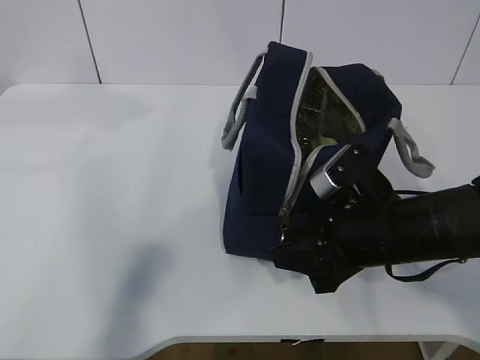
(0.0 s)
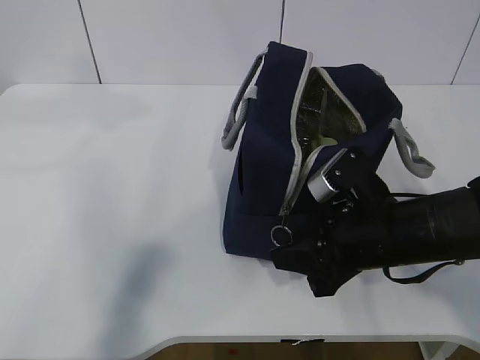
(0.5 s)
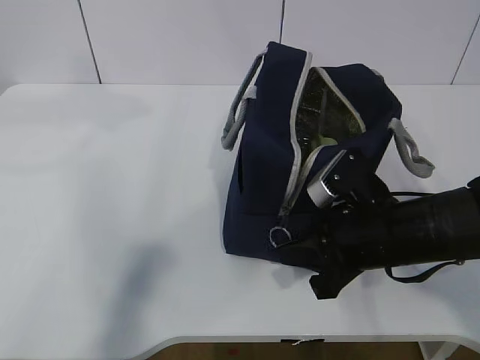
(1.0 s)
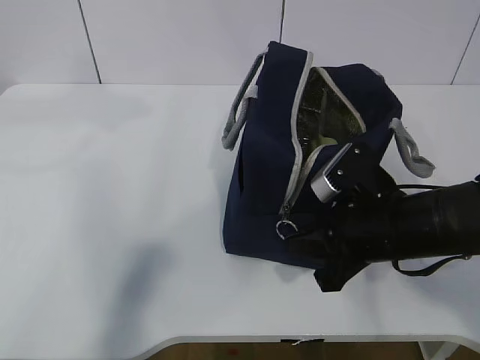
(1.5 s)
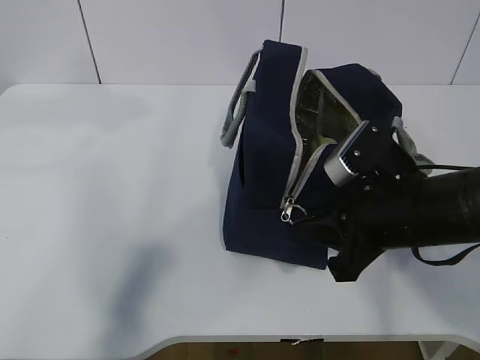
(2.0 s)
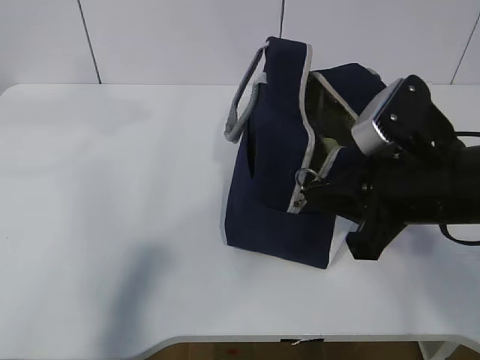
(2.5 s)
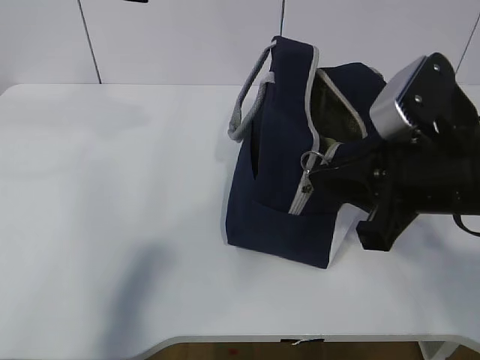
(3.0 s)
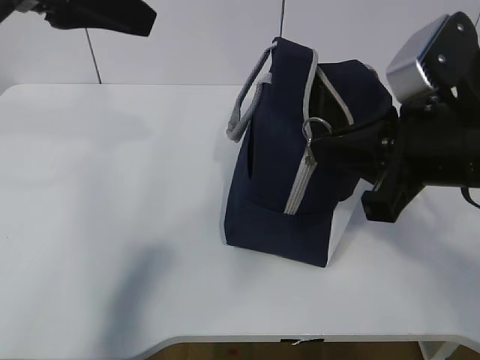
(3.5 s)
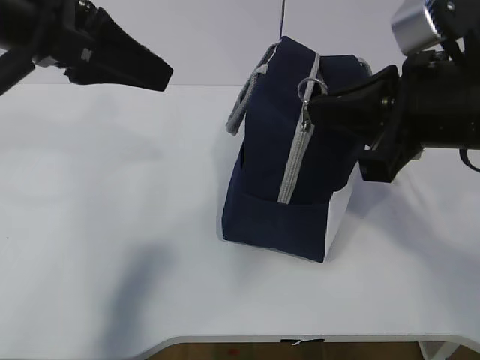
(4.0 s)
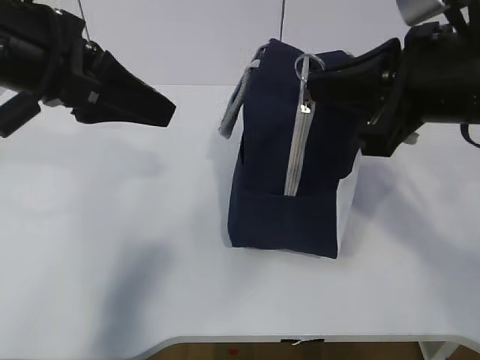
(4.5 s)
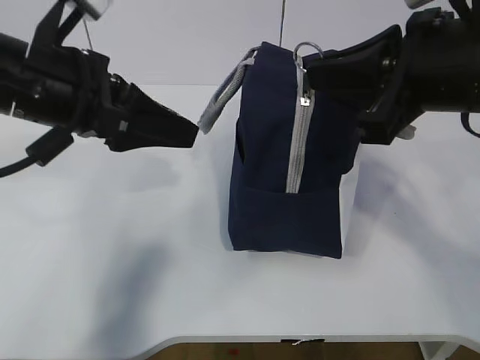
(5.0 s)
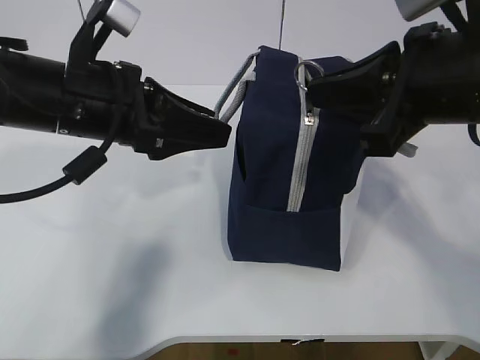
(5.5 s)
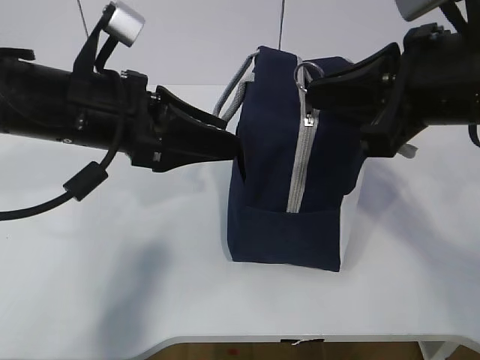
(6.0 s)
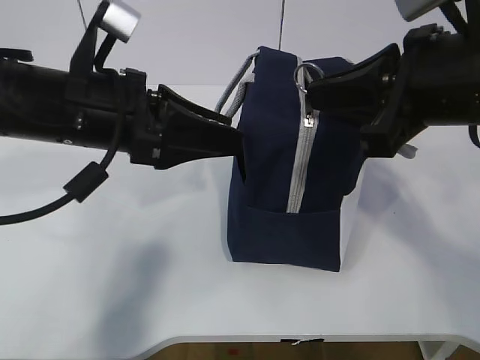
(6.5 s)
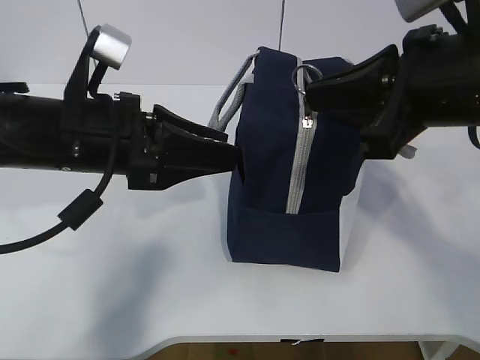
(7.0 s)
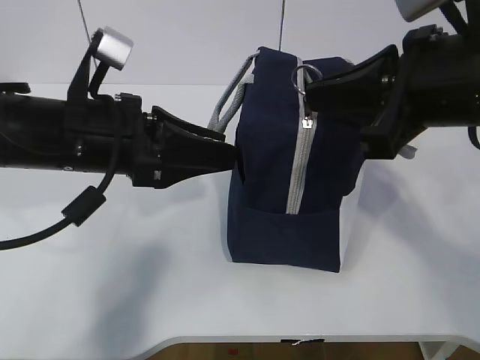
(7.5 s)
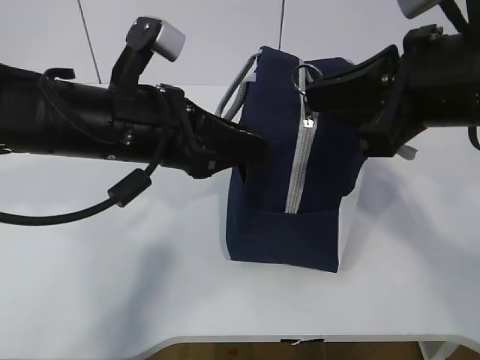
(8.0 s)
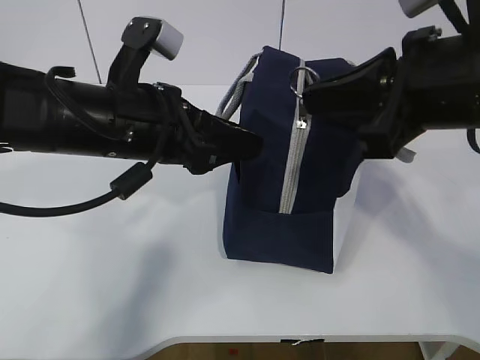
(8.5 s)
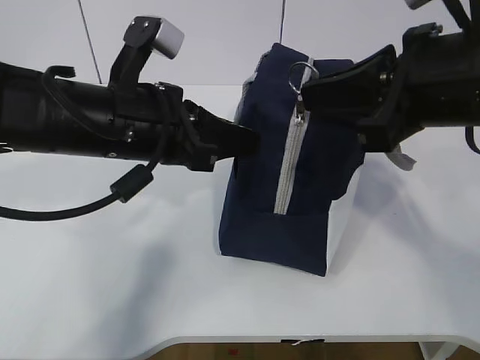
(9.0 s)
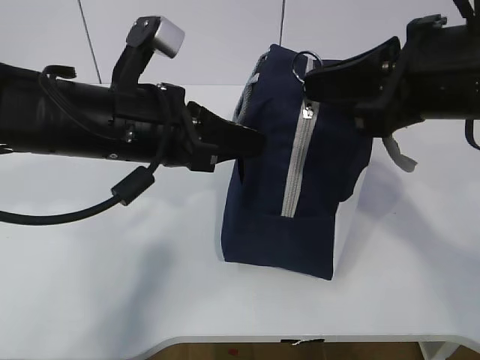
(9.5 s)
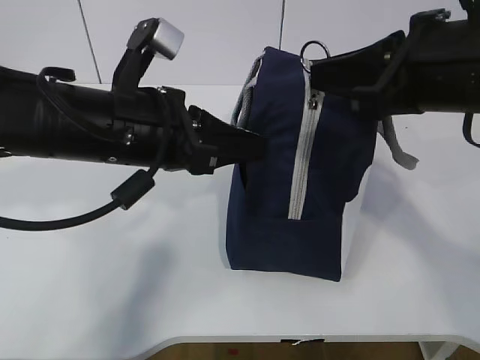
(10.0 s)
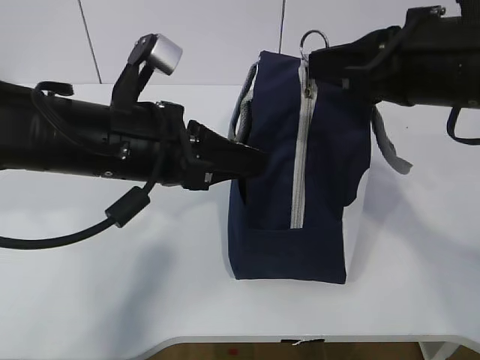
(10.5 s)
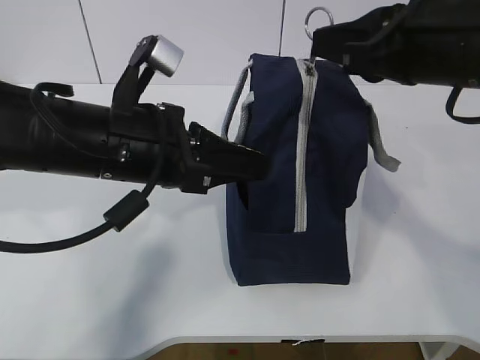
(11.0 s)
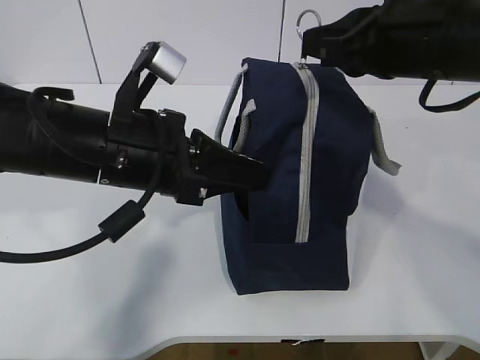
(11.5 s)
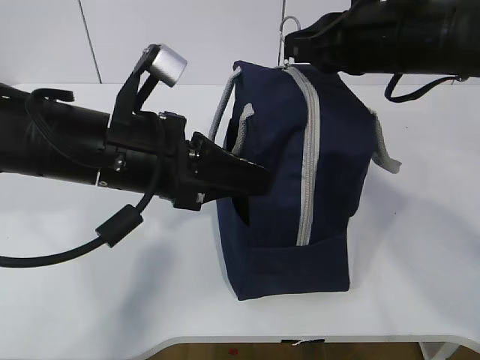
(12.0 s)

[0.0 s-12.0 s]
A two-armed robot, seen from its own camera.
Step, 3.0 to 8.5 s: Pull the zipper with your right hand.
0.0 to 2.0 s: The right gripper closes.
2.0 to 4.0 s: The left gripper travels downward by roughly 5 cm. Meanwhile the right gripper heads upward, covering approximately 10 cm.
4.0 to 6.0 s: The left gripper goes about 10 cm downward.
6.0 to 8.0 s: The grippers move only a little.
8.0 to 10.0 s: The left gripper closes its fingers.
10.0 to 12.0 s: The right gripper travels forward by roughly 10 cm.

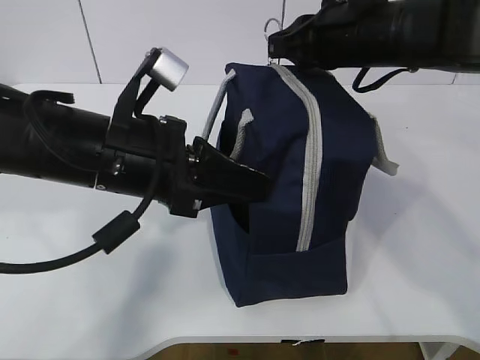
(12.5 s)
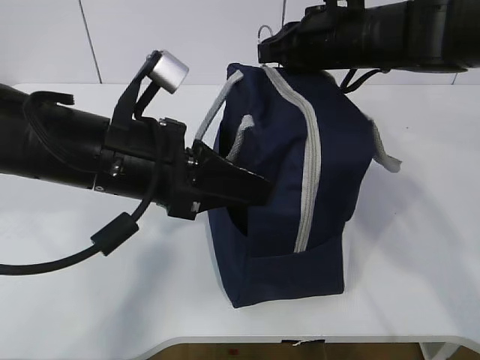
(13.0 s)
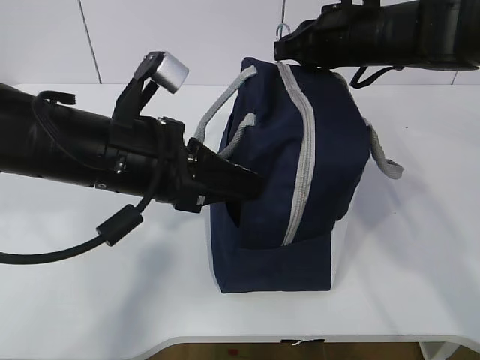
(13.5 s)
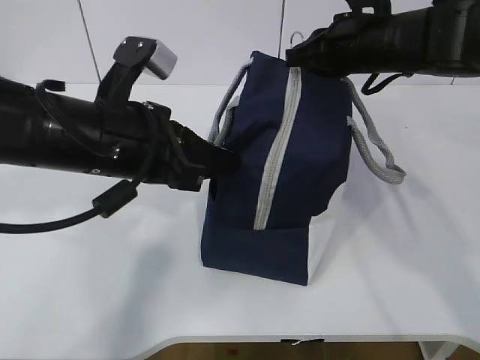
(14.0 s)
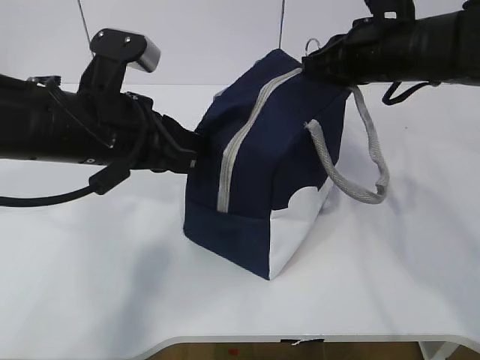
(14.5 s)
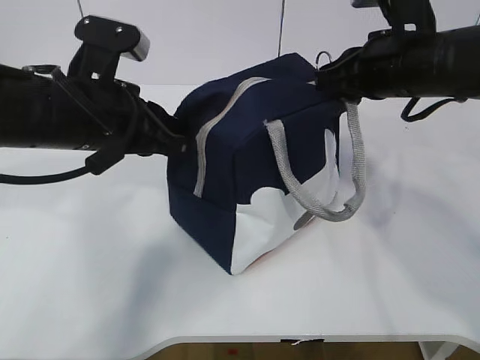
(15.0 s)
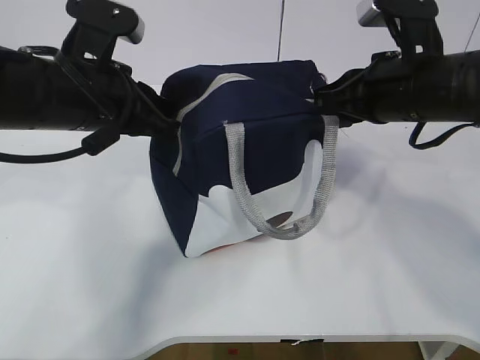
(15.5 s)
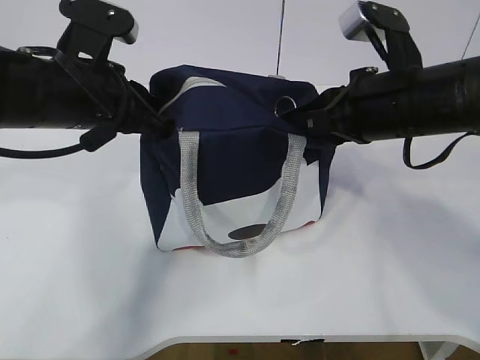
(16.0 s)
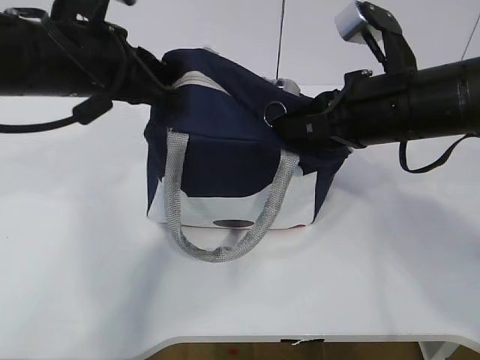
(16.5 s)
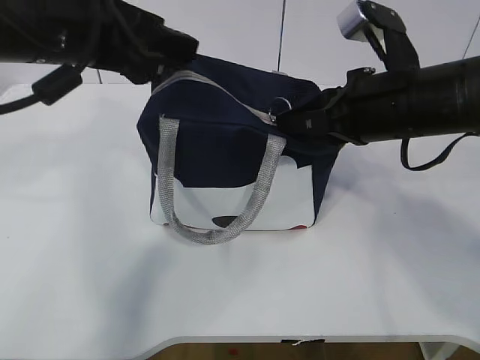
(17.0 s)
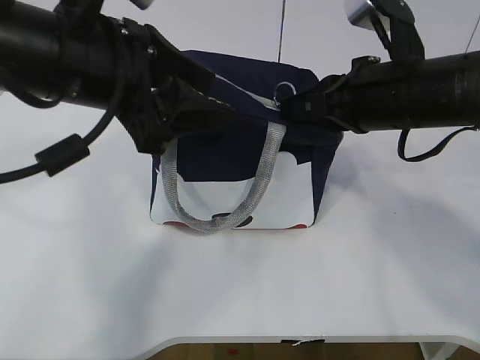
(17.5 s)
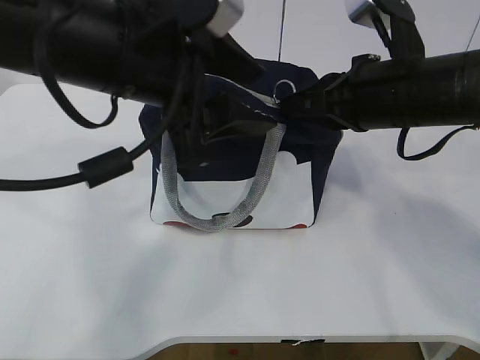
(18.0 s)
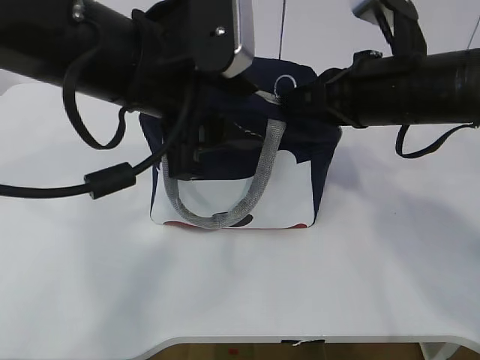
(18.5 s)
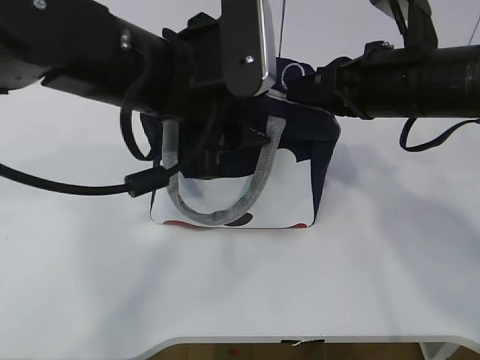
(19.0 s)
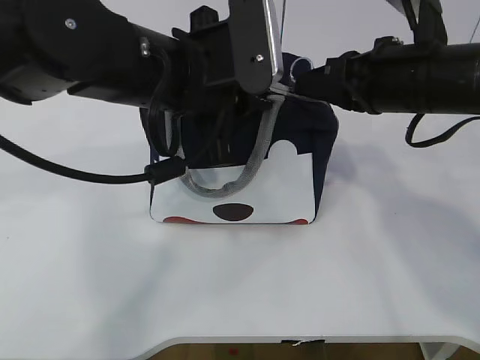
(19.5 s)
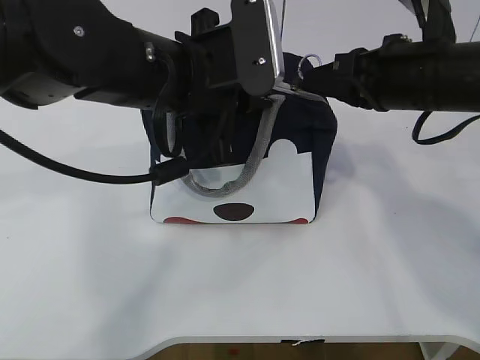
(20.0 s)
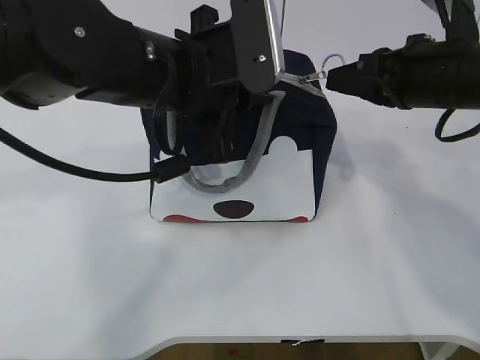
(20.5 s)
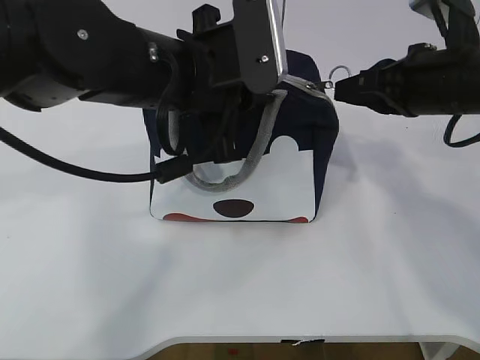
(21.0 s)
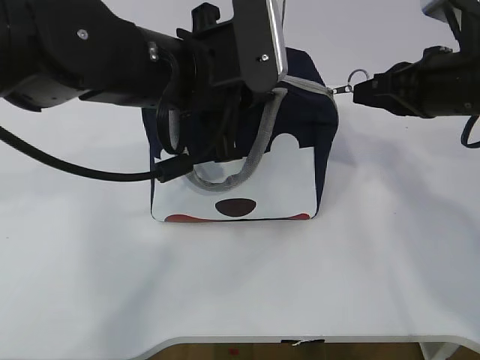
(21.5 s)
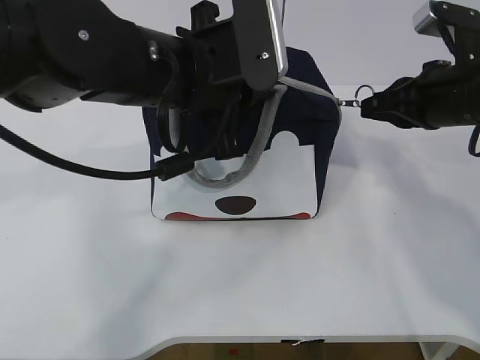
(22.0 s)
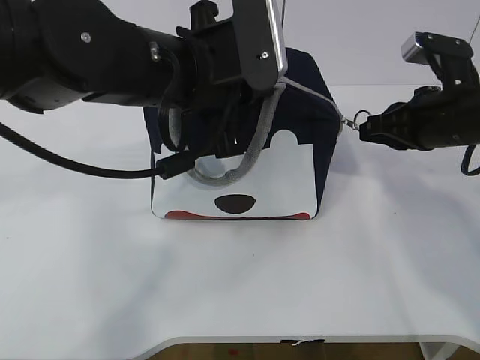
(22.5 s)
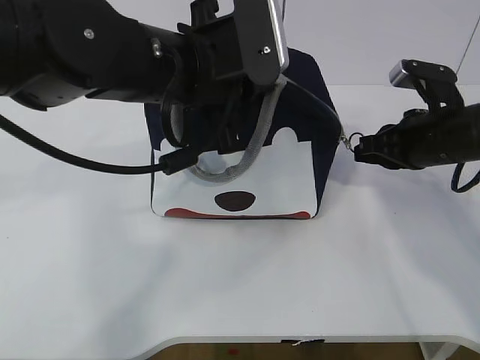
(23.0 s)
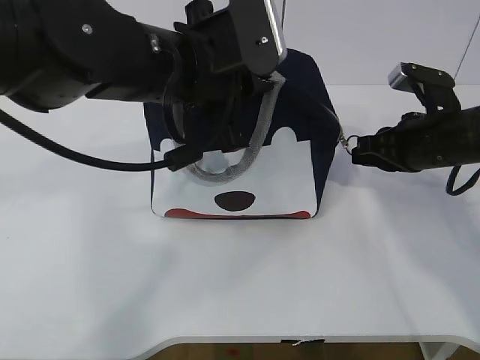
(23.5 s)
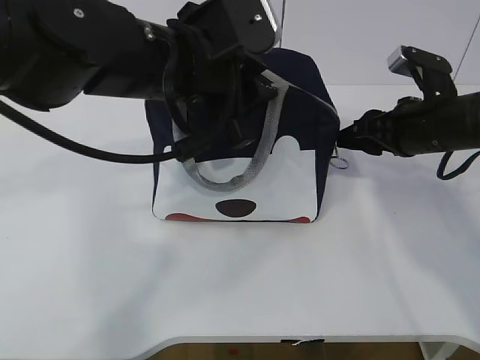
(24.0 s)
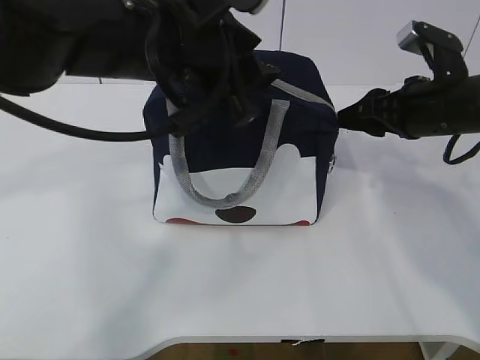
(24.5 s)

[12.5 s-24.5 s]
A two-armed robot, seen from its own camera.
14.5 to 16.5 s: The right gripper goes approximately 10 cm backward. Meanwhile the left gripper shifts by approximately 5 cm.
16.5 to 18.5 s: The left gripper goes some 10 cm to the right and backward, and opens up.
18.5 to 20.5 s: The left gripper changes place by some 5 cm, and closes. Meanwhile the right gripper shifts some 5 cm to the right.
20.5 to 22.5 s: The right gripper goes roughly 5 cm downward.
22.5 to 24.5 s: The right gripper opens. Meanwhile the left gripper opens its fingers.

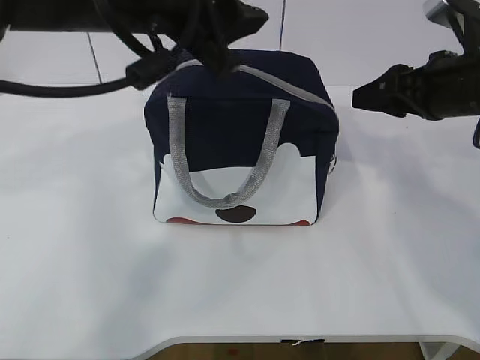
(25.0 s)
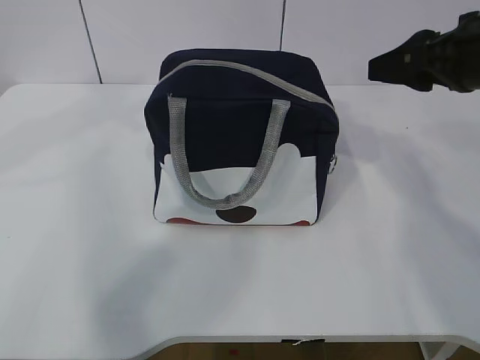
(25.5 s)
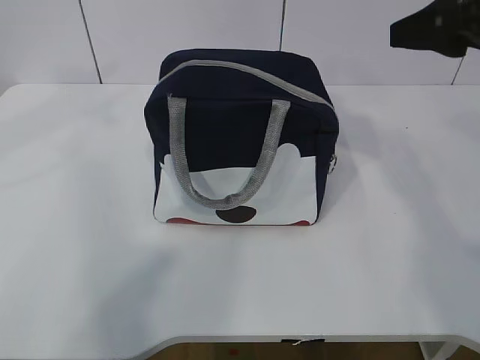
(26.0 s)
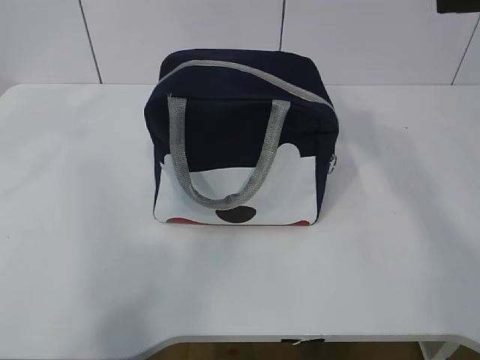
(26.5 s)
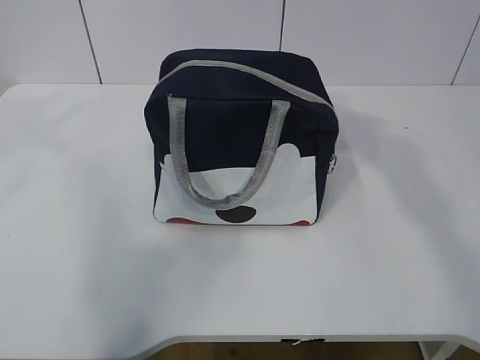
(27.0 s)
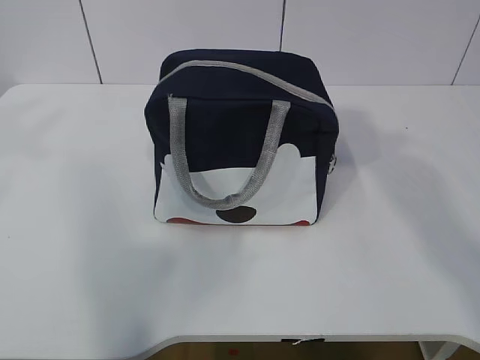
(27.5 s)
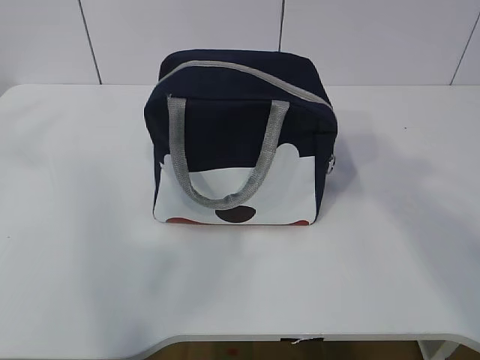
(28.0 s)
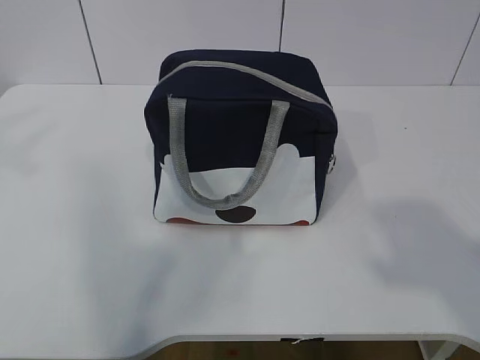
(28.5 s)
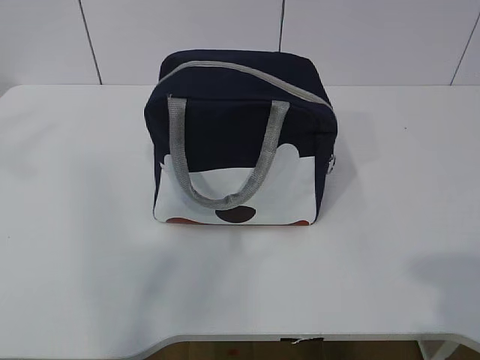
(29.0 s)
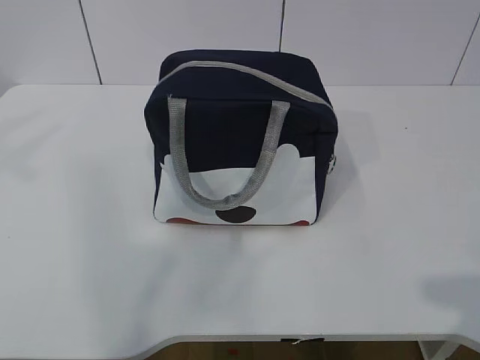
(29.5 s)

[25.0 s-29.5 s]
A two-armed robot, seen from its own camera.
25.0 to 27.0 s: The right gripper is displaced upward and backward by about 20 cm, while the left gripper heads to the left, backward and upward, covering roughly 20 cm.
27.0 to 29.5 s: The left gripper moves backward, some 5 cm; the right gripper moves backward and downward, roughly 25 cm.
